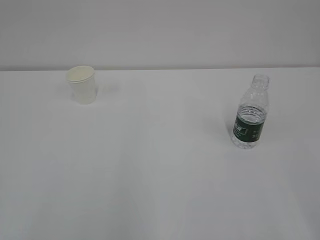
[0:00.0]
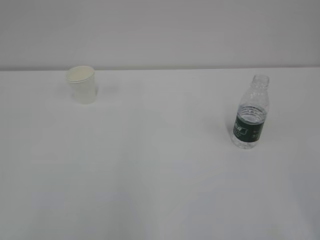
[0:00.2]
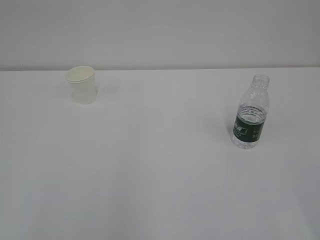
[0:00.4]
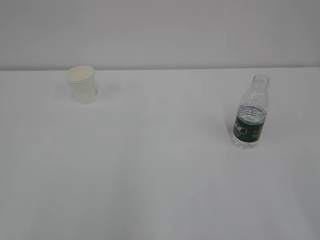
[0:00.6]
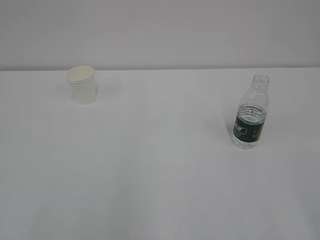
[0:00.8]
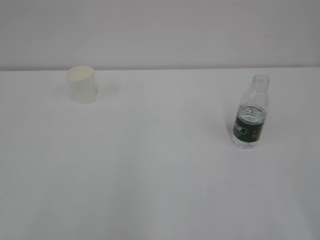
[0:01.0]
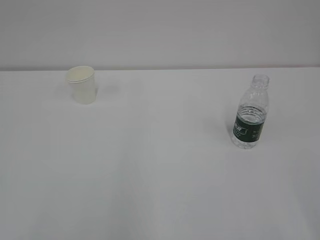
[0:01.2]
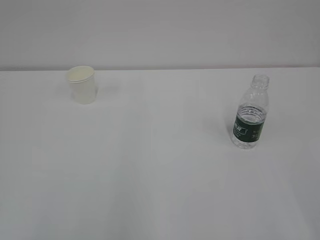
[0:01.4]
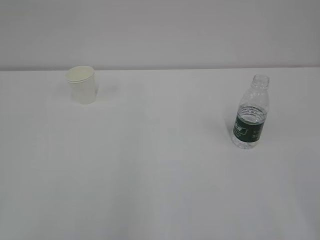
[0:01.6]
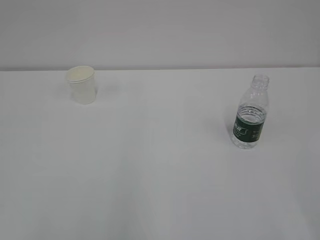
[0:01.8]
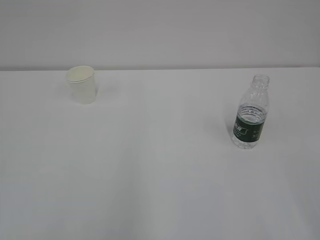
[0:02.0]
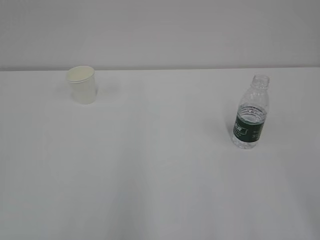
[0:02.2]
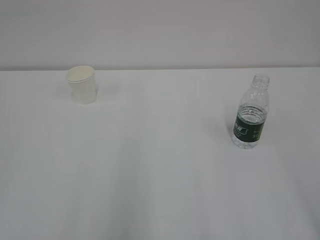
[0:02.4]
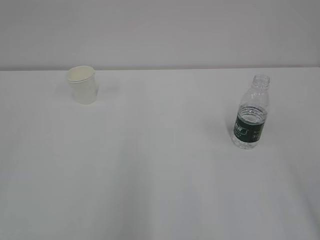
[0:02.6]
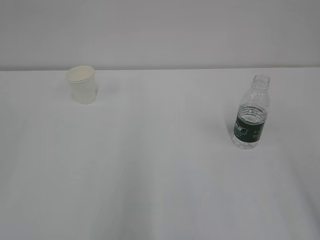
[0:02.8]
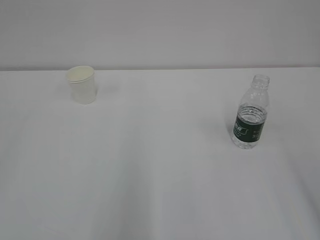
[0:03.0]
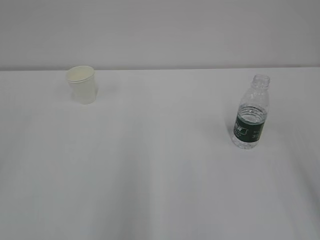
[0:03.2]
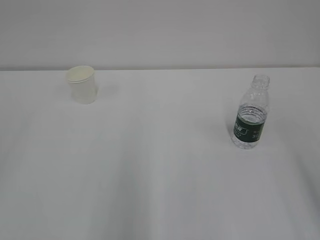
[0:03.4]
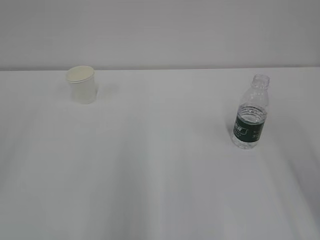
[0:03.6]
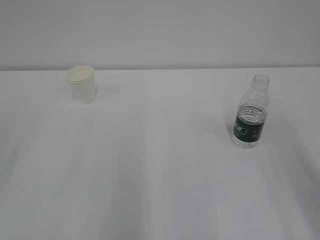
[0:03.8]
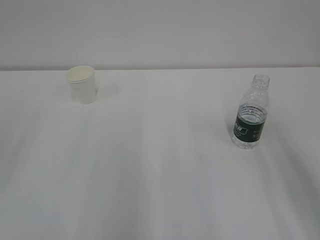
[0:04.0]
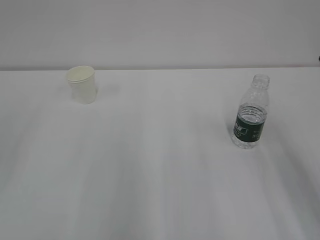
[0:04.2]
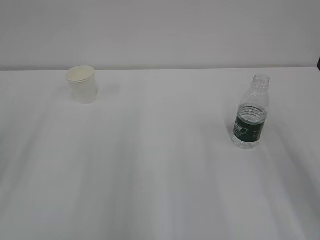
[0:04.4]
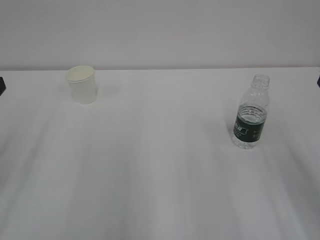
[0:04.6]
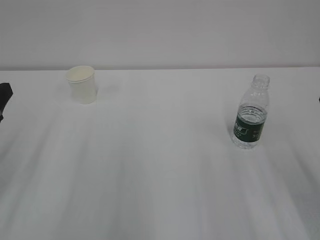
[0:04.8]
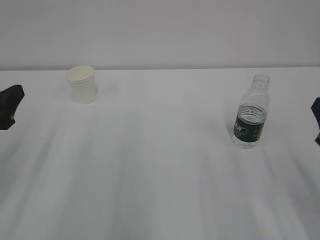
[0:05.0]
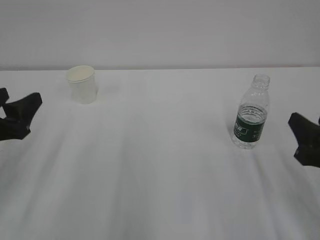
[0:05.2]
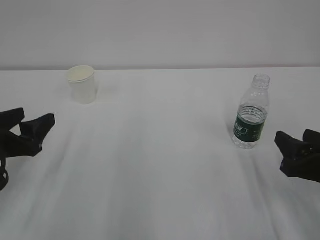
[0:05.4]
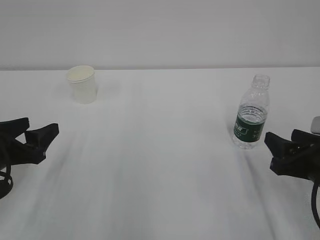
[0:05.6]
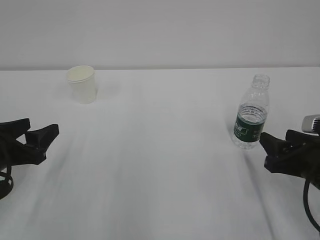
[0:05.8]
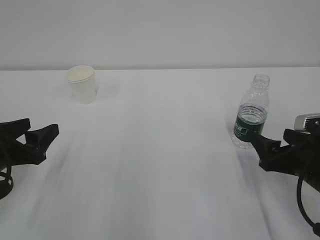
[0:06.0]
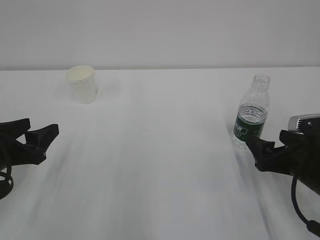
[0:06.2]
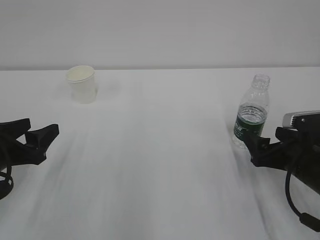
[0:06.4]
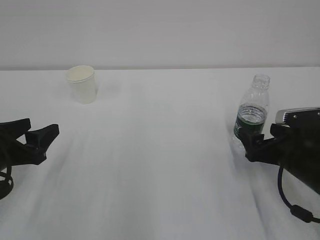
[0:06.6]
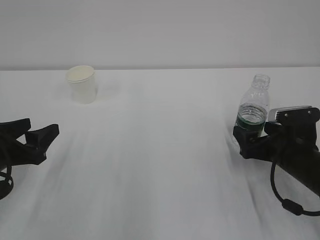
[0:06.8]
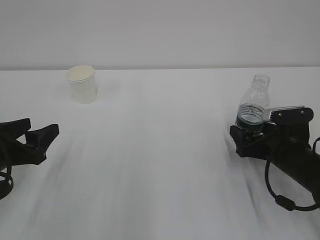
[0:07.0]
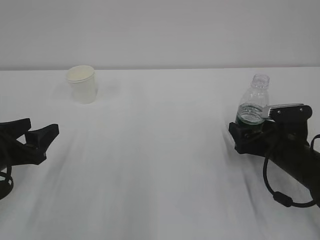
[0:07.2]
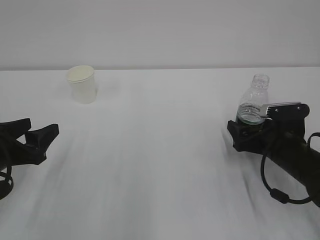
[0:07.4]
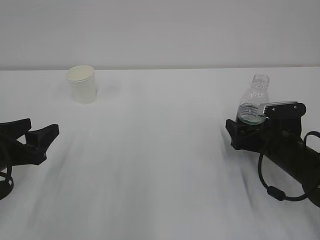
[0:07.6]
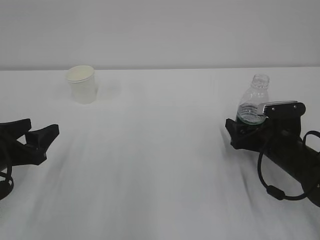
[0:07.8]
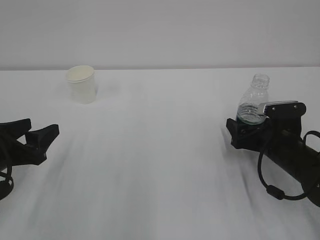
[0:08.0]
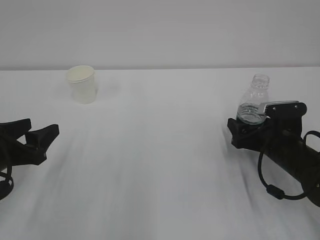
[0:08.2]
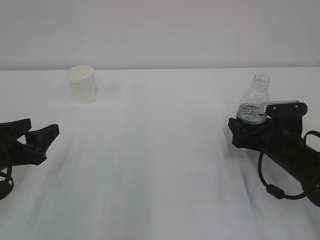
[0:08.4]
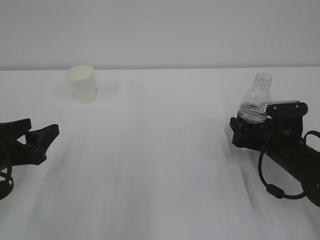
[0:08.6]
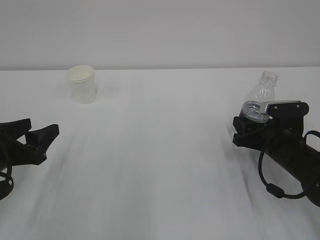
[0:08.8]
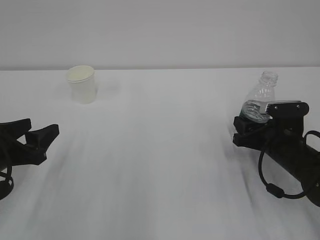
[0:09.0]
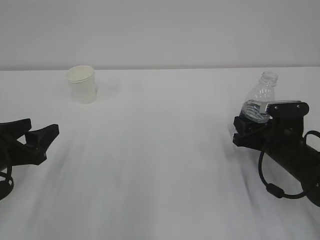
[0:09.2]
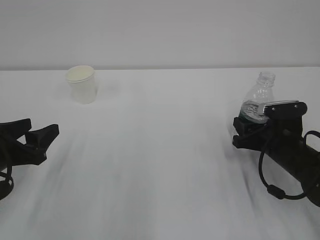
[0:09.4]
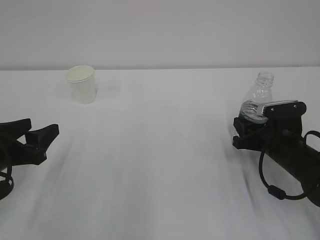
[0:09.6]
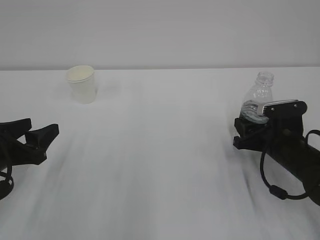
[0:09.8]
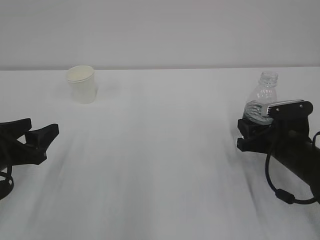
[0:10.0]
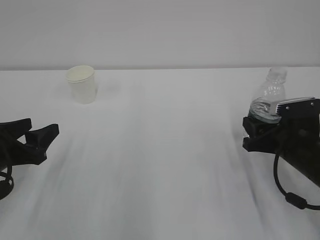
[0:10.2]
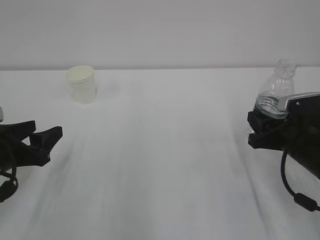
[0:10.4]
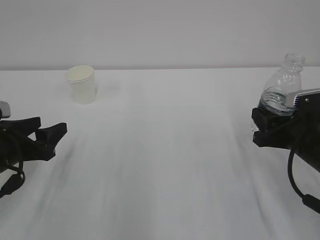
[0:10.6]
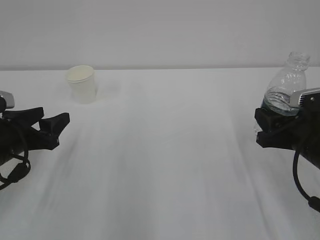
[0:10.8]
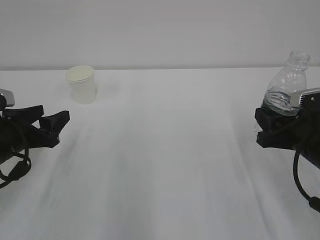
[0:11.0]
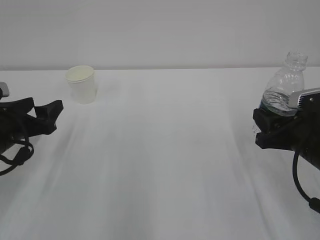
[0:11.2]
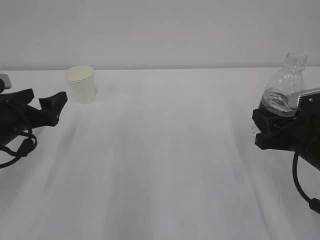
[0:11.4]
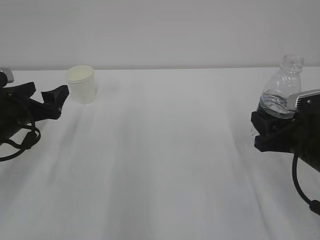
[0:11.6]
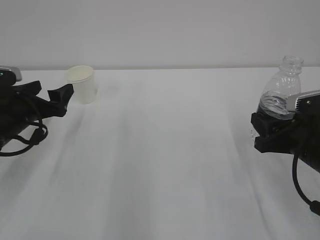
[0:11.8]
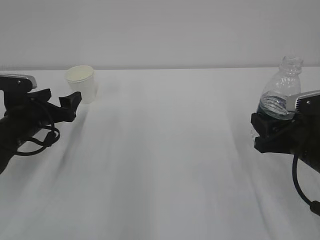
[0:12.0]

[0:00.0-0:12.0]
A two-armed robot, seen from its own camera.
0:04.4 to 0:06.0: Both grippers travel together downward, roughly 15 cm. The right gripper opens its fingers.
0:06.0 to 0:07.6: The right gripper heads forward, covering approximately 10 cm.
0:07.6 to 0:09.0: The right gripper closes its fingers.
0:09.0 to 0:10.4: The right gripper moves some 5 cm.
0:10.4 to 0:12.0: The left gripper shifts roughly 10 cm forward, and opens its fingers.

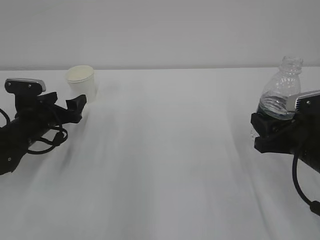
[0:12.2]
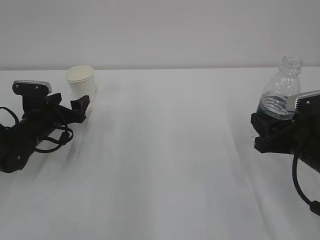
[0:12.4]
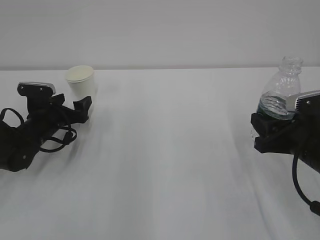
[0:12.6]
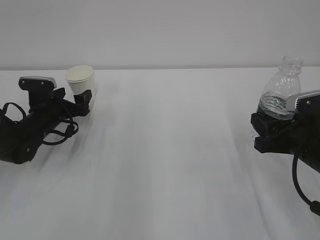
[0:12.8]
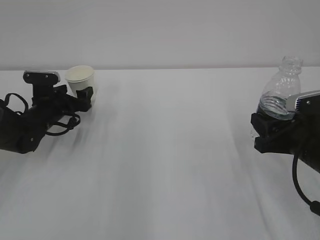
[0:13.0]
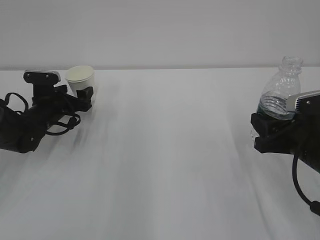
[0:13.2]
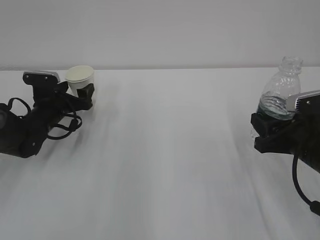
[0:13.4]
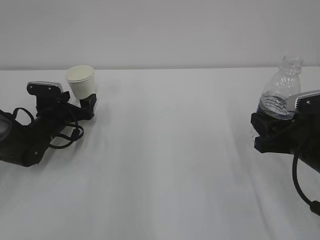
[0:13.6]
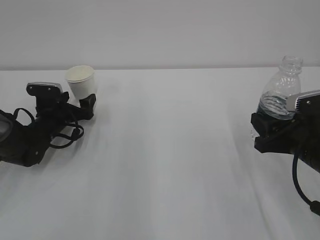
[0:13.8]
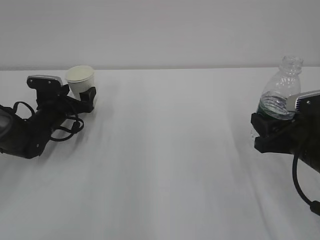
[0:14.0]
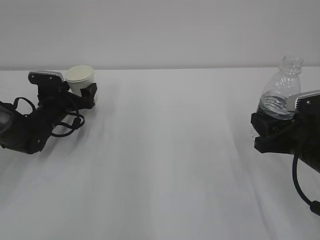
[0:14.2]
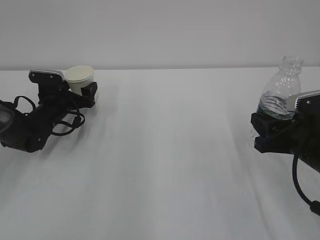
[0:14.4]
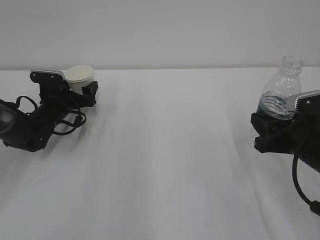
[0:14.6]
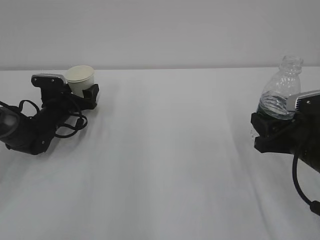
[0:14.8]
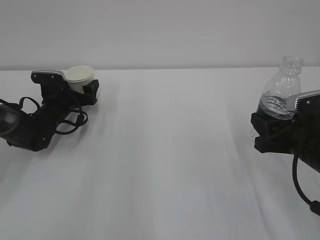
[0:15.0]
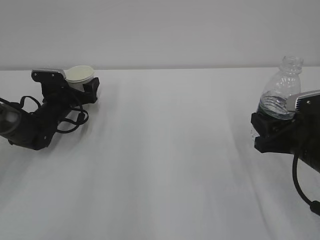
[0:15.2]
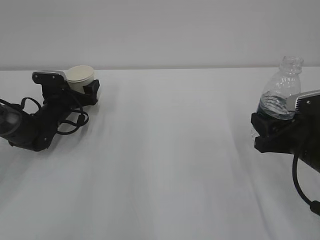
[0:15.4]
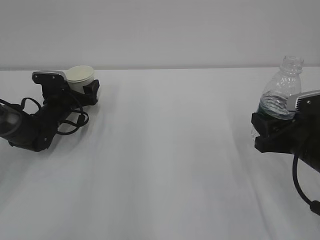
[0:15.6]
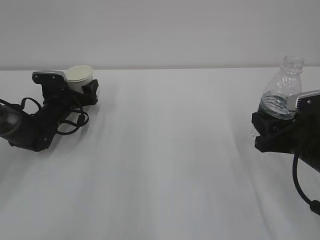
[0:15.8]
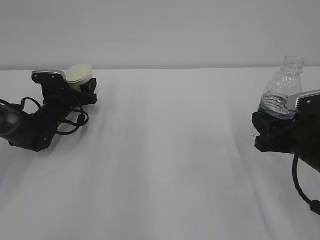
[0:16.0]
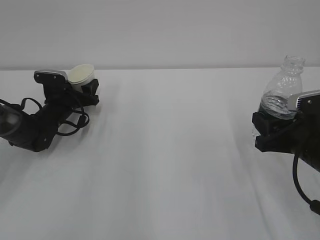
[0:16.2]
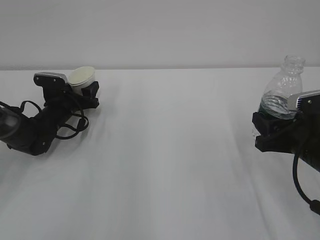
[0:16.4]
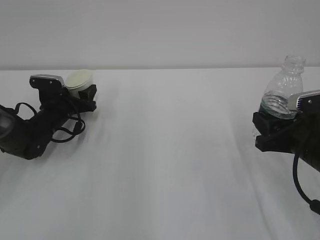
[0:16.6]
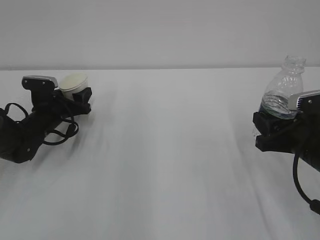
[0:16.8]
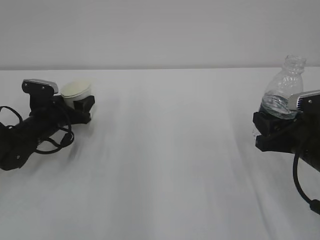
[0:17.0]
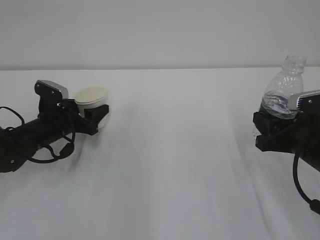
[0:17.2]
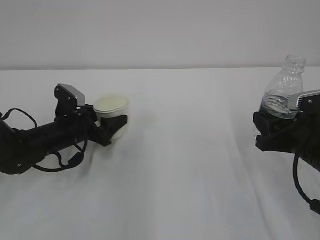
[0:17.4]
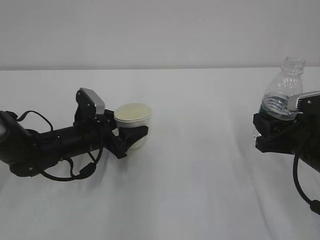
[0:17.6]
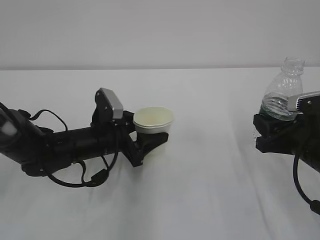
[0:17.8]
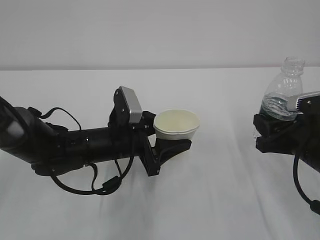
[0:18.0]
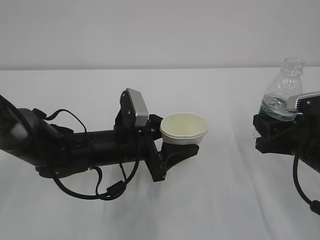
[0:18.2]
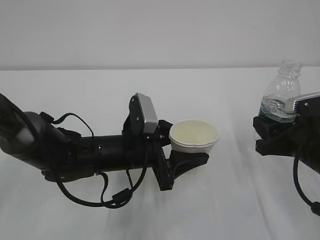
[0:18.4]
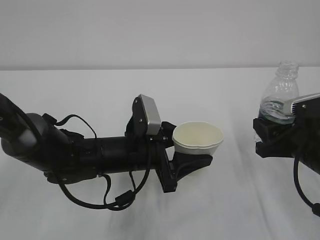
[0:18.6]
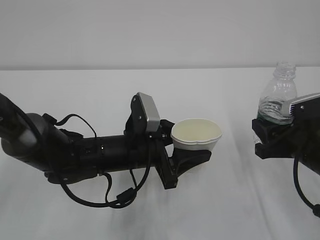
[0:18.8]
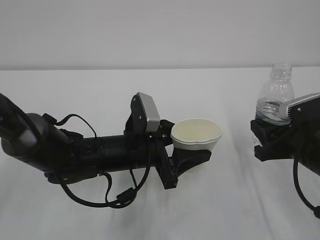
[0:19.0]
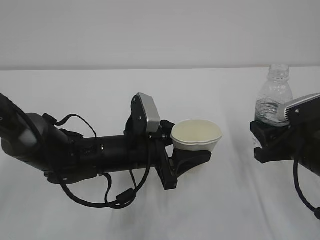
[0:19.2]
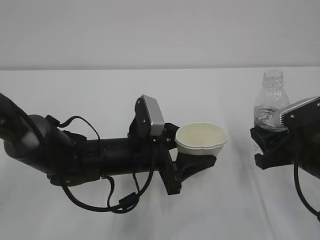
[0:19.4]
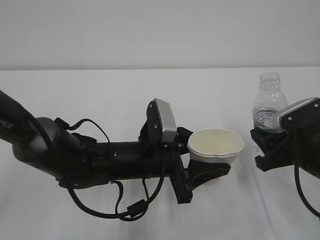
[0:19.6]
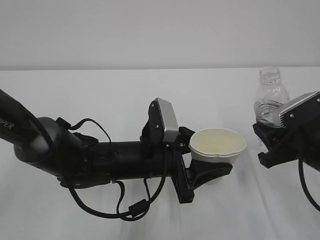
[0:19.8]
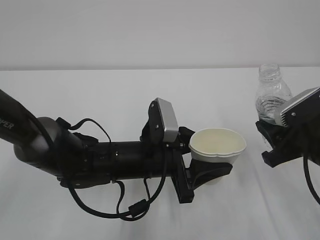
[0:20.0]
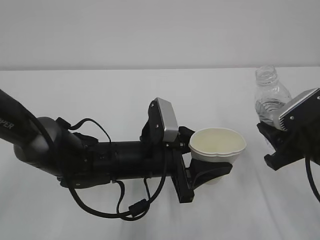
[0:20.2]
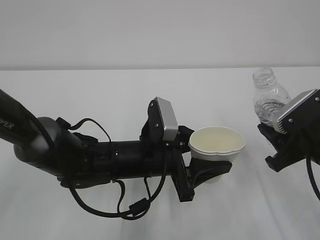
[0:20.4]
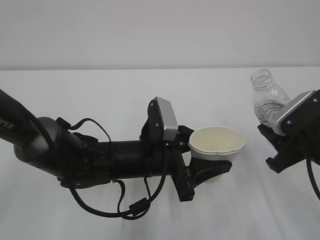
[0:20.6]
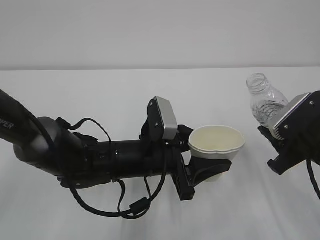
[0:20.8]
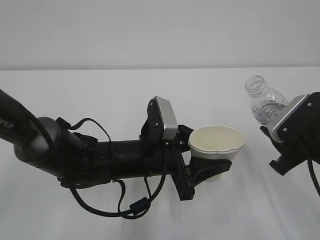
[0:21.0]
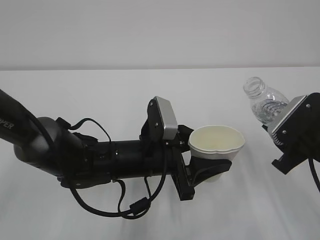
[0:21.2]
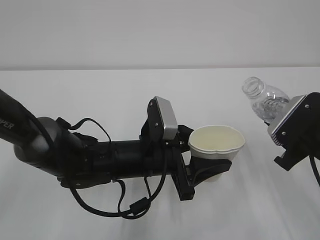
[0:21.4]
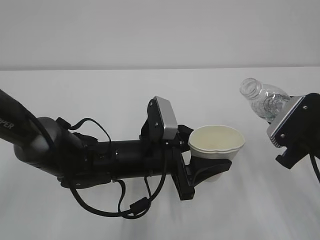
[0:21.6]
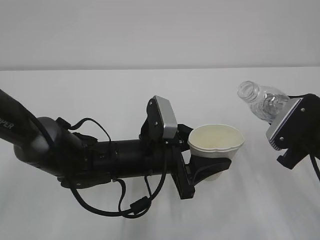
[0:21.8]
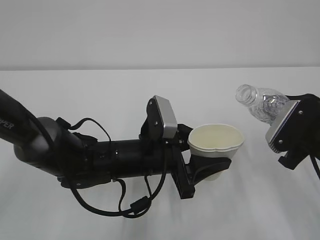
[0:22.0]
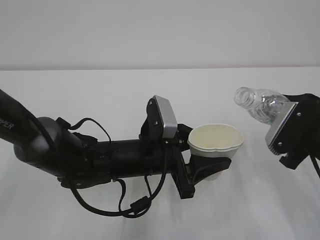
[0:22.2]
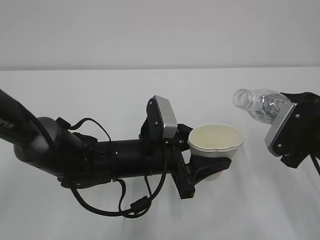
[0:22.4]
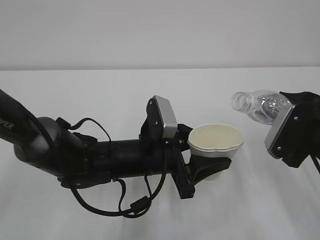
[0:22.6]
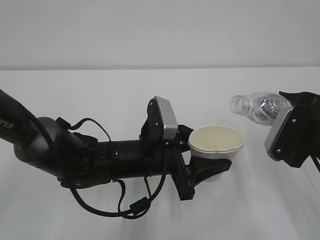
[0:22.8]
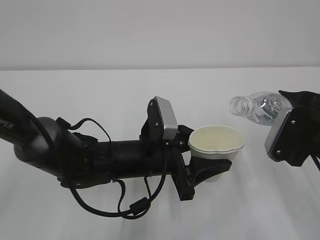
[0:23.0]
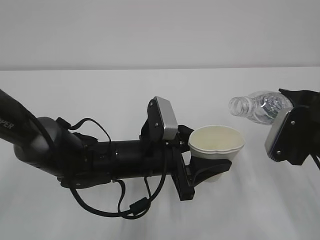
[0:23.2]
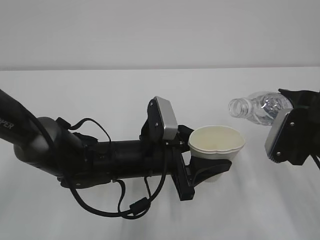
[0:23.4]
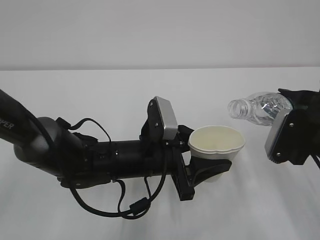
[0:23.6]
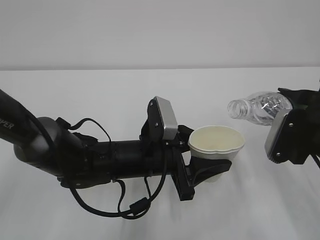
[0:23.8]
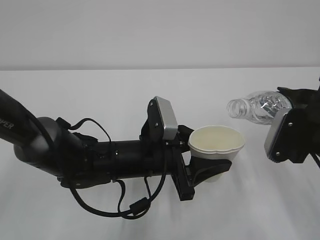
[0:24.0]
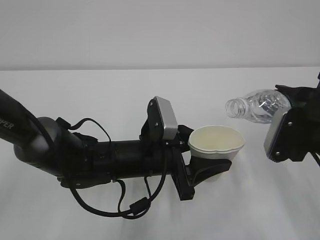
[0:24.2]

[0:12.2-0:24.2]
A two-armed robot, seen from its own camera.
0:12.2 to 0:13.8: The left gripper goes about 5 cm forward.
0:13.8 to 0:15.2: The grippers move only a little.
0:15.2 to 0:16.6: The left gripper closes.
0:16.6 to 0:18.2: The left gripper shifts some 25 cm to the right and backward.
0:18.2 to 0:19.8: The left gripper changes place by roughly 5 cm.
0:22.6 to 0:24.2: The grippers move only a little.
